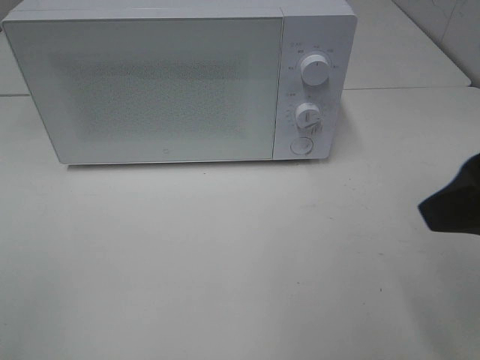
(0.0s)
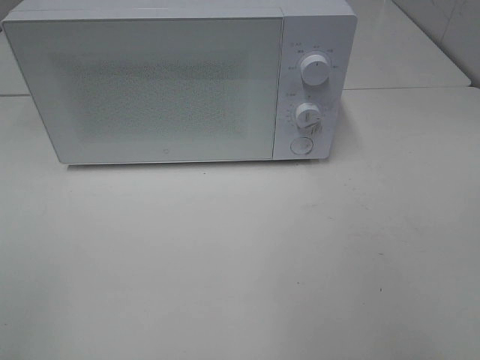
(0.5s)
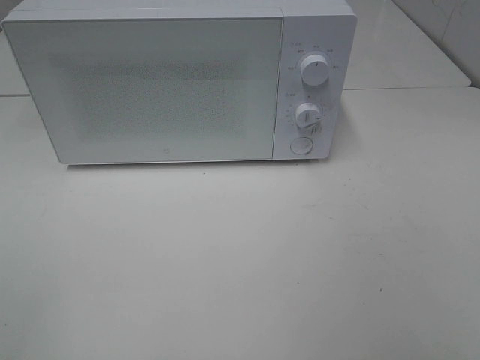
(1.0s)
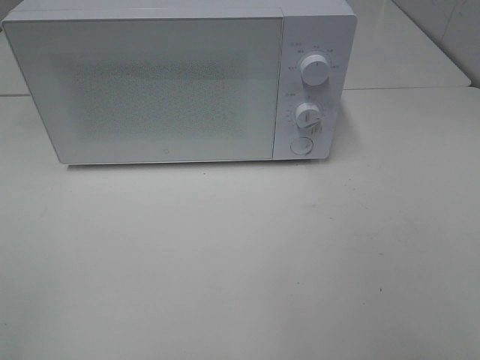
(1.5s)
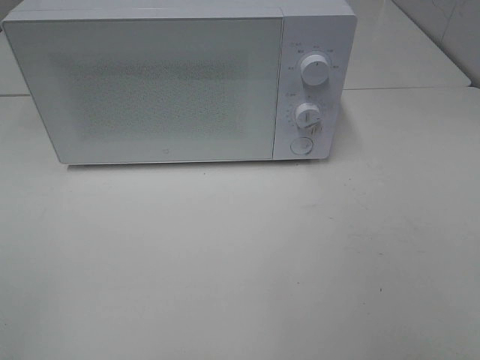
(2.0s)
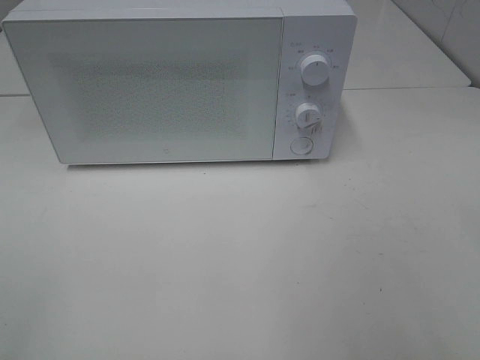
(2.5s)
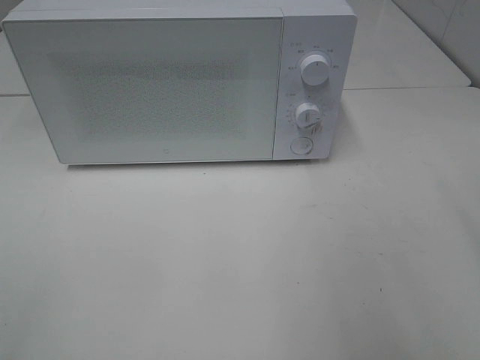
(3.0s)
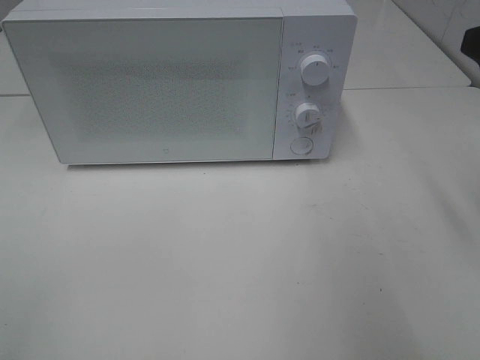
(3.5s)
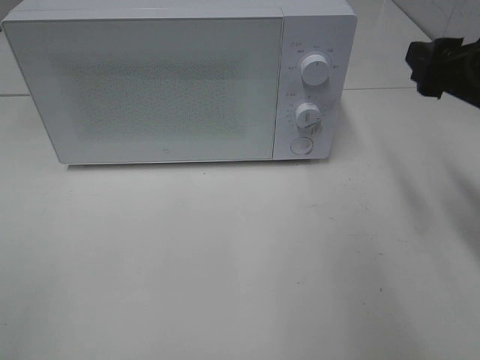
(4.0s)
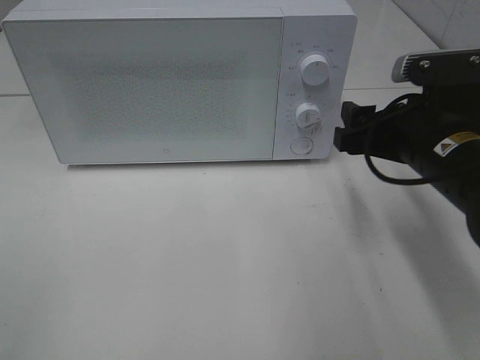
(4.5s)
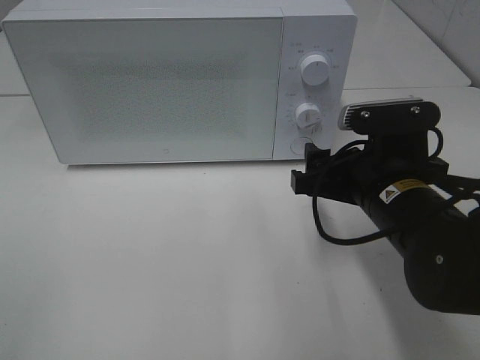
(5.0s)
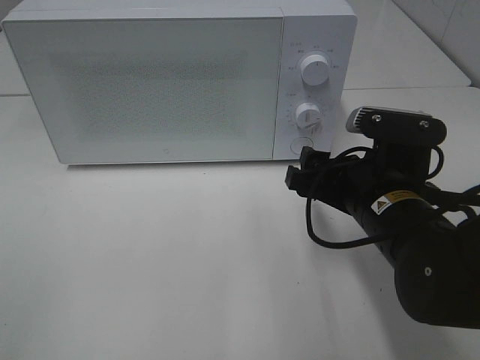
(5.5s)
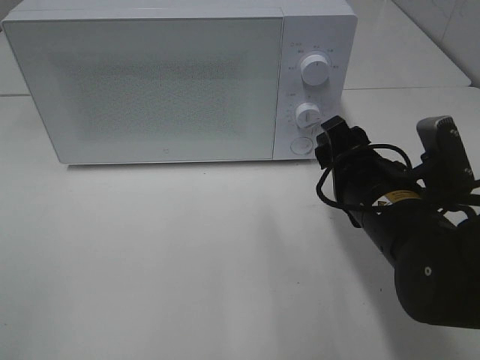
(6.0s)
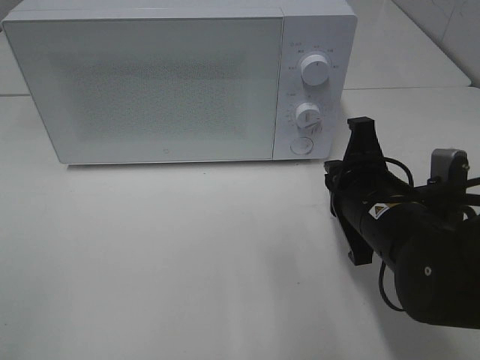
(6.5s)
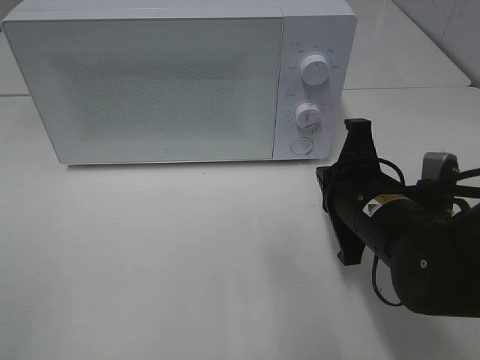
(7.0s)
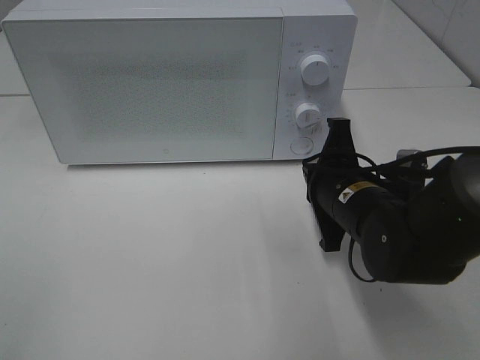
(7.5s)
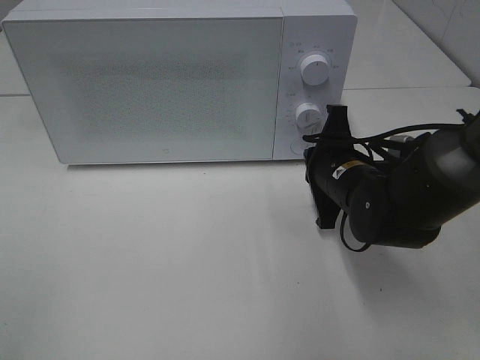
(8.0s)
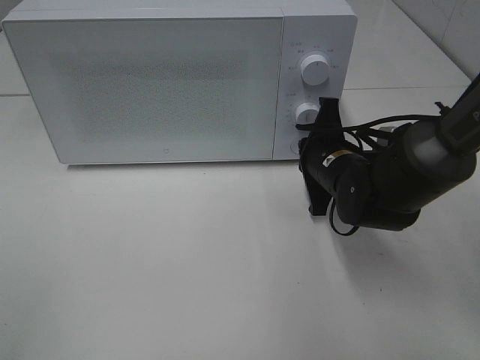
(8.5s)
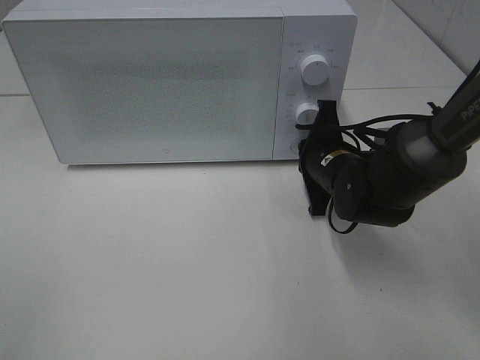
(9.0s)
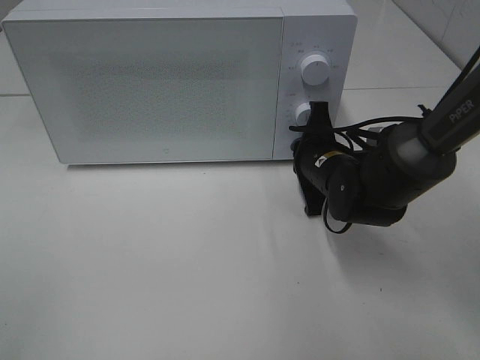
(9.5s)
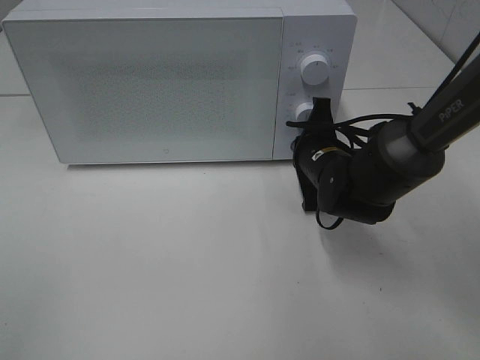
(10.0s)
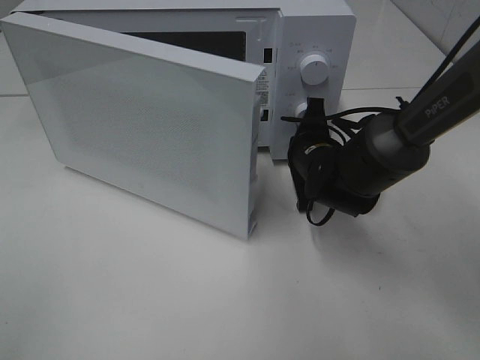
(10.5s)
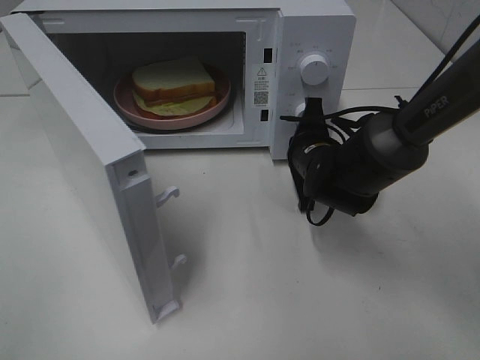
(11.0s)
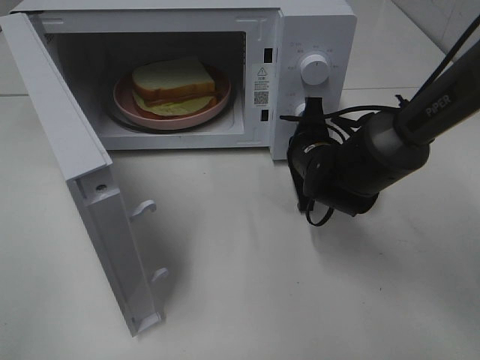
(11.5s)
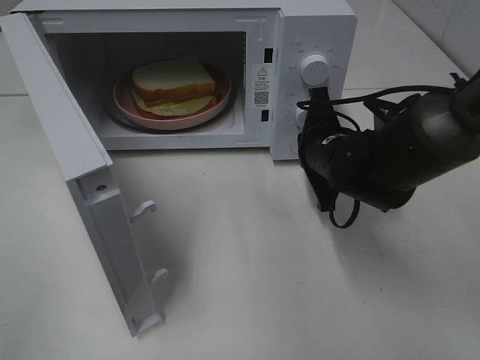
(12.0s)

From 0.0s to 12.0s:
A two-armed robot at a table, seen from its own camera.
Task of the whole recording: Heat Sandwich.
From 0.0s to 2.0s: The right gripper is displaced backward and to the right by some 15 cm.
From 2.0s to 4.0s: The right gripper shifts approximately 25 cm forward.
From 4.0s to 6.0s: The right gripper moves to the left and downward, about 15 cm.
From 6.0s to 8.0s: The right gripper heads forward, covering roughly 10 cm, and closes its fingers.
From 8.0s to 10.0s: The right gripper changes place by approximately 5 cm.

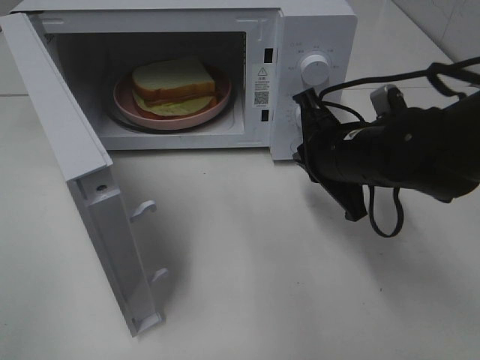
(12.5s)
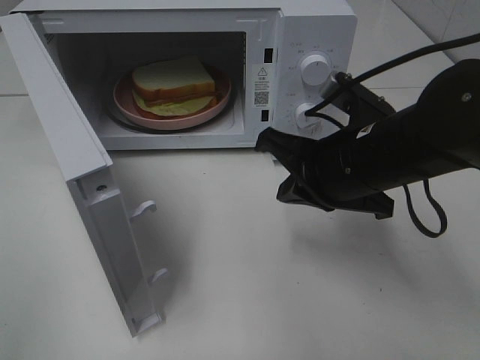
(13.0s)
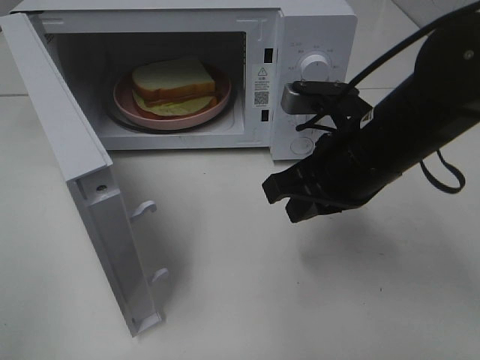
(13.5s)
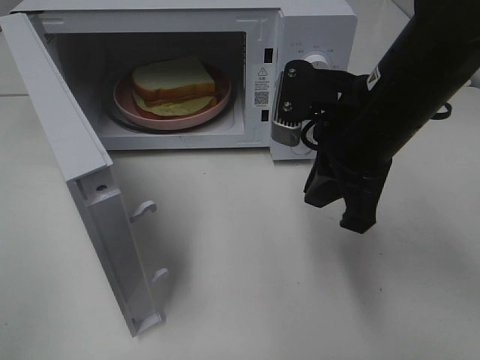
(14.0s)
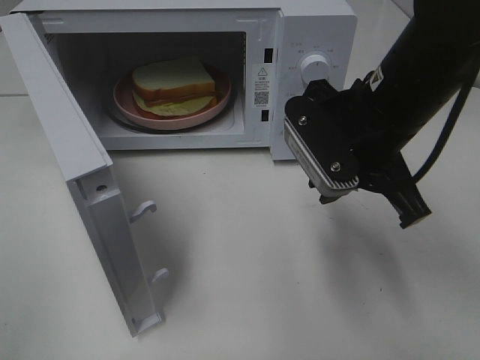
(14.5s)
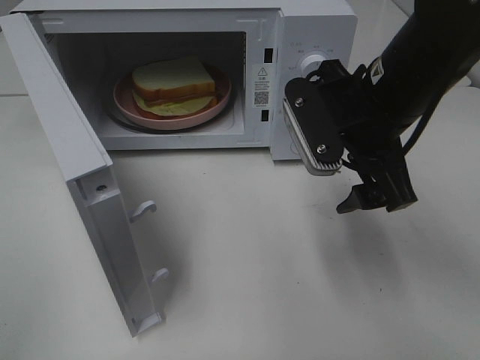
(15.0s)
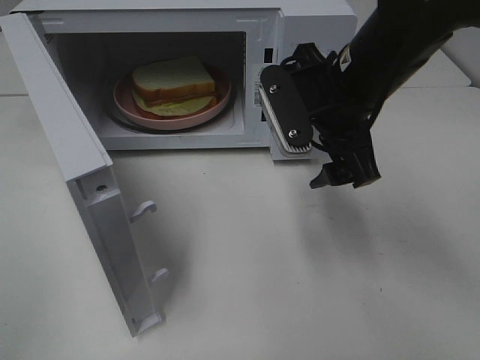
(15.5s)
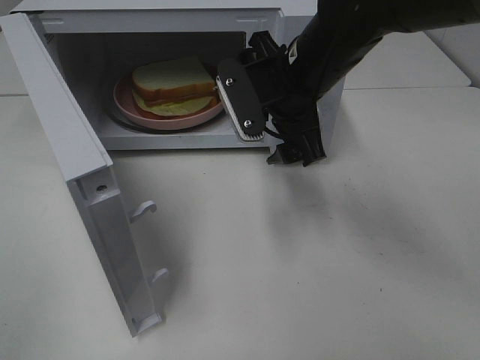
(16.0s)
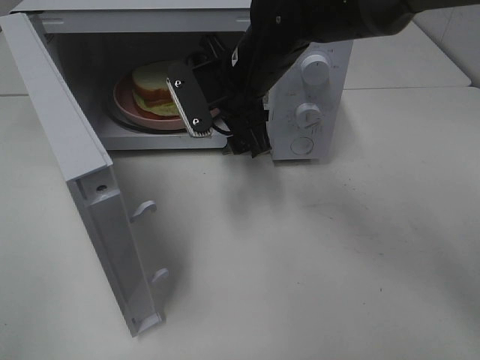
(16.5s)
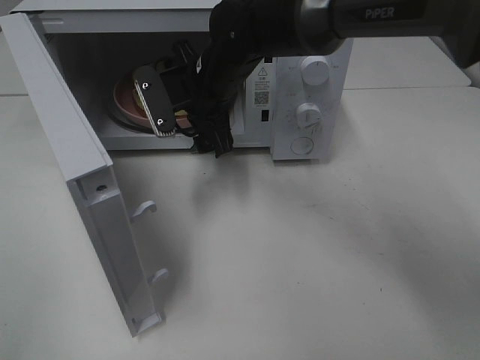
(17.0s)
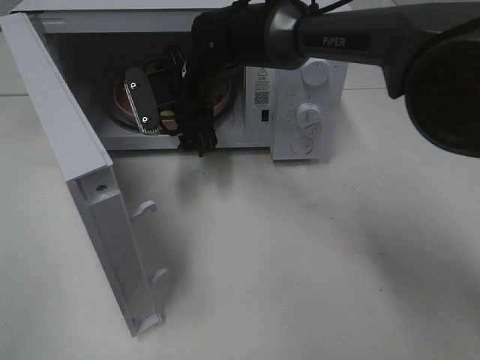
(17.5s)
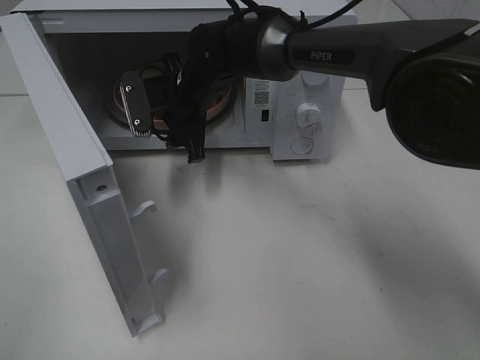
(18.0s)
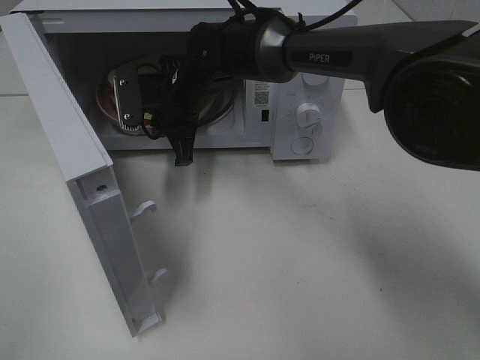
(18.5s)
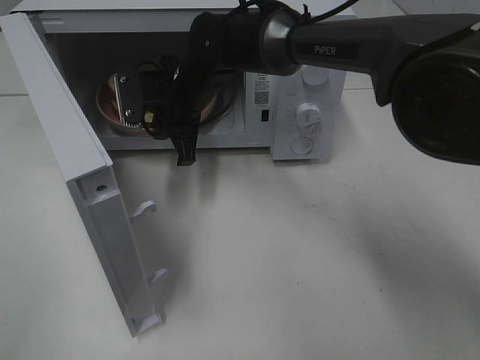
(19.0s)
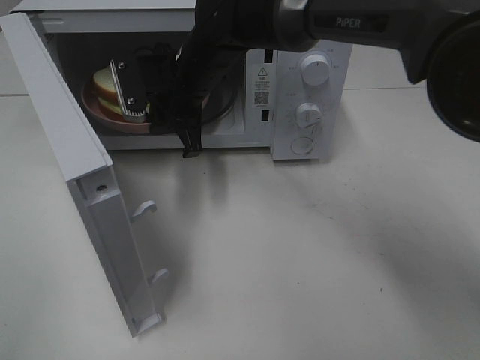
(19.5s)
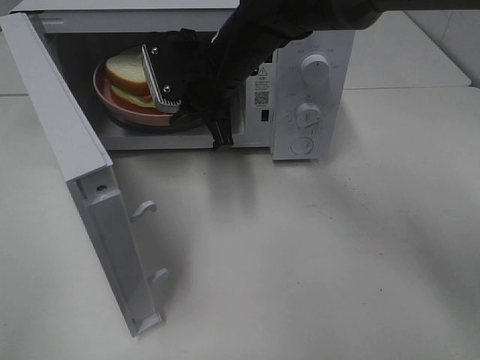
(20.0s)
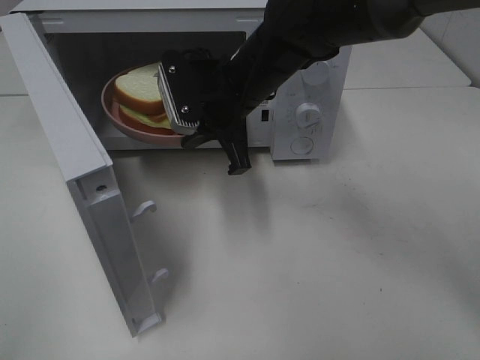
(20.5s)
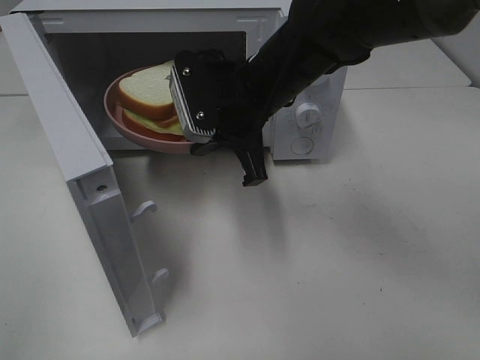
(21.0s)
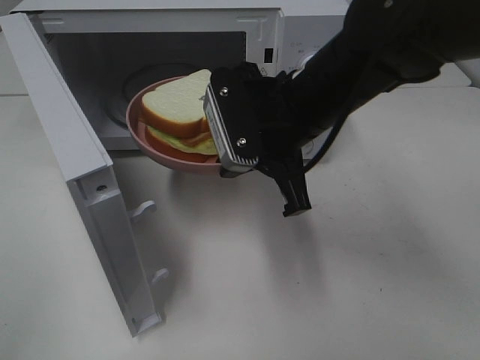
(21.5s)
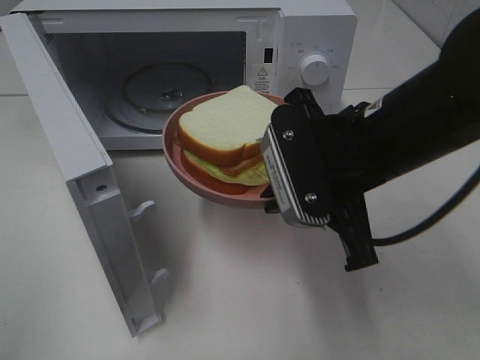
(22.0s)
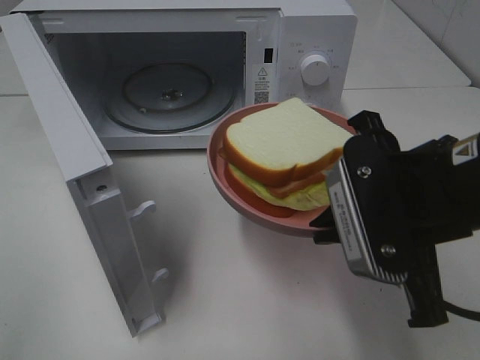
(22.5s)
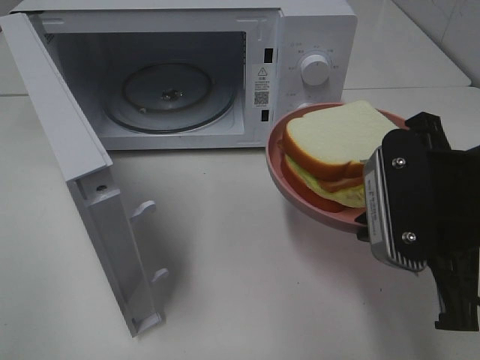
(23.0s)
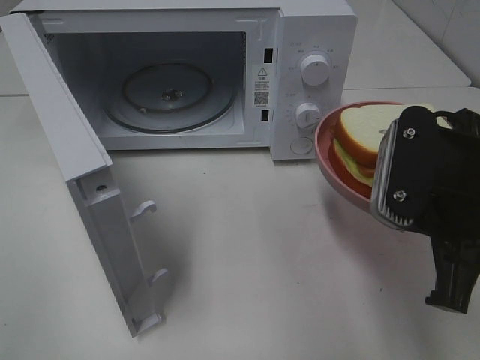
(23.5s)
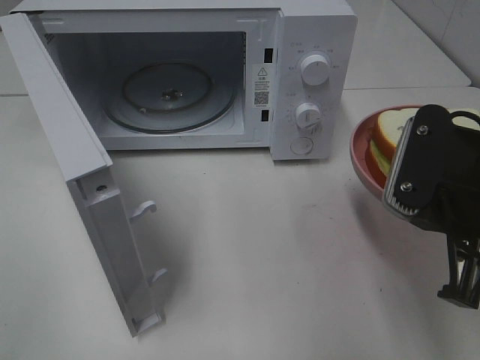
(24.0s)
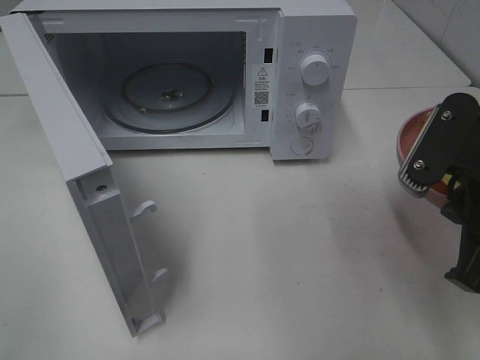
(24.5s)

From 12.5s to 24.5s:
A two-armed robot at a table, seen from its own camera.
Task of the whole recording: Heat Sandwich.
Step, from 13.5s to 19.0s: Right hand: grab the plate with the sandwich.
From 12.5s to 14.5s: The right gripper travels upward by approximately 10 cm.
From 14.5s to 16.5s: The right gripper heads forward and to the left, covering about 15 cm, and opens.
From 16.5s to 18.5s: The right gripper moves to the left, forward and downward, roughly 10 cm, and closes up.
From 18.5s to 20.5s: The right gripper is displaced to the right and backward by some 10 cm.
From 20.5s to 22.5s: The right gripper travels backward and to the right by about 25 cm.
From 22.5s to 24.5s: The right gripper moves to the right, some 5 cm.

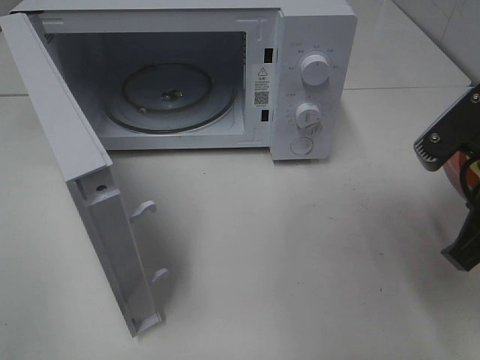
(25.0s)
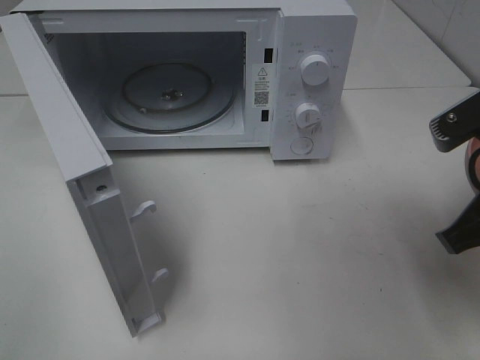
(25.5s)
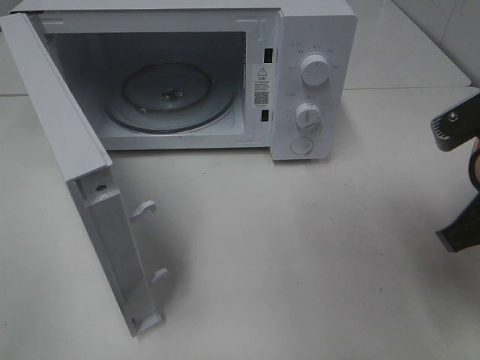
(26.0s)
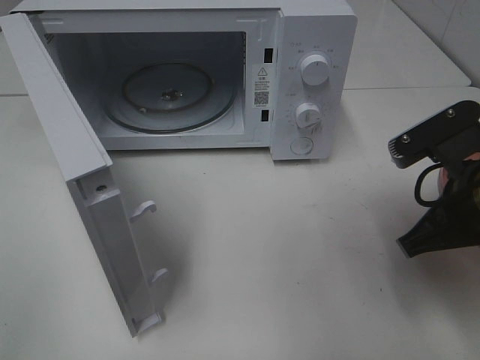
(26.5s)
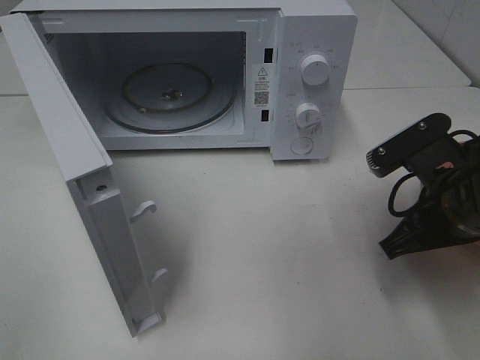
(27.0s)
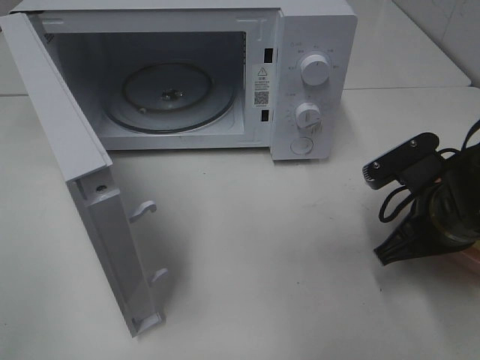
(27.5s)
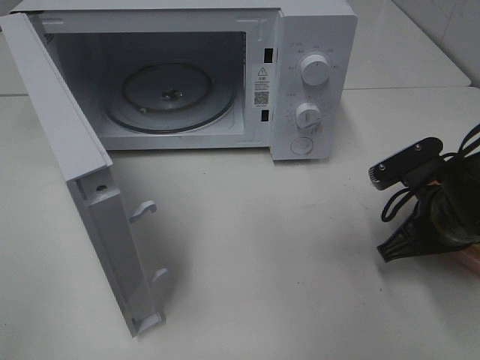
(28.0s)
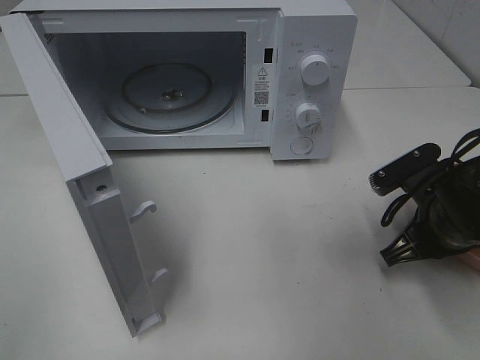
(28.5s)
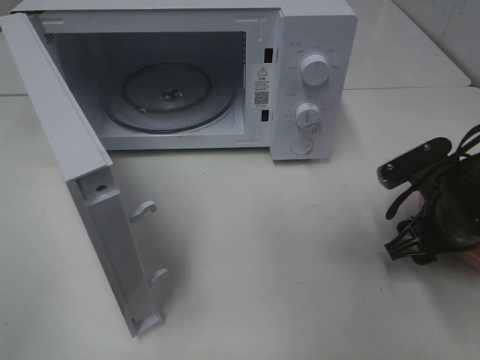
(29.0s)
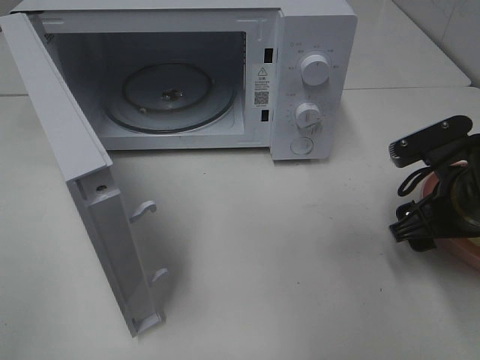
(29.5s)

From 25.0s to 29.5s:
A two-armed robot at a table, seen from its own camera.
Task of the whole recording: Heat Sandwich.
From 25.0s to 27.0s: The right gripper travels downward by some 5 cm.
From 27.0s to 29.5s: The right gripper opens up.
